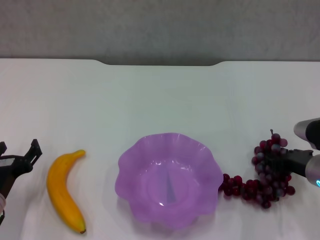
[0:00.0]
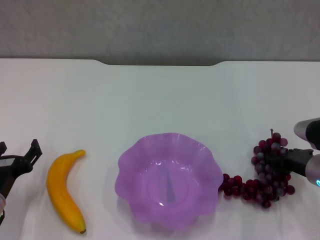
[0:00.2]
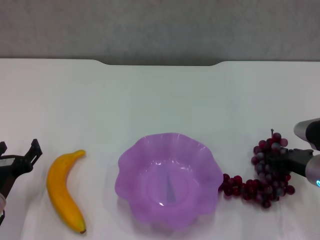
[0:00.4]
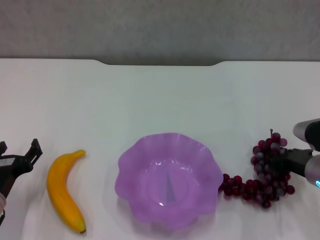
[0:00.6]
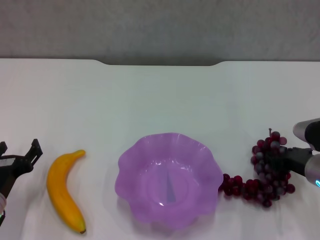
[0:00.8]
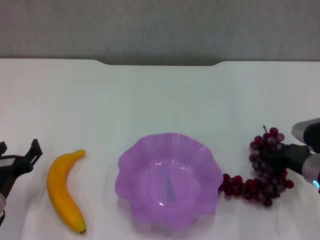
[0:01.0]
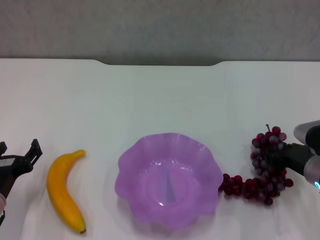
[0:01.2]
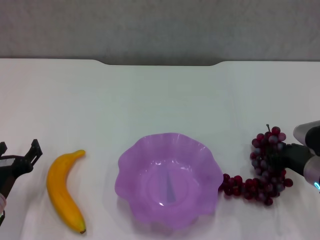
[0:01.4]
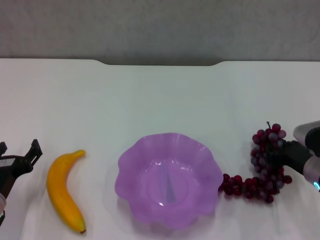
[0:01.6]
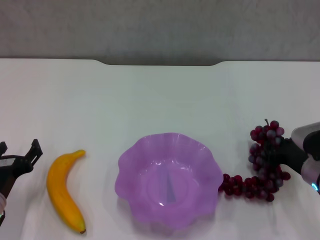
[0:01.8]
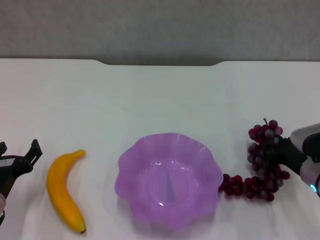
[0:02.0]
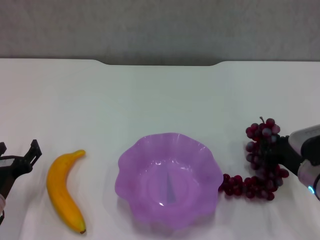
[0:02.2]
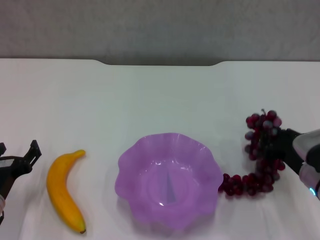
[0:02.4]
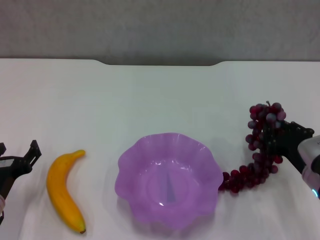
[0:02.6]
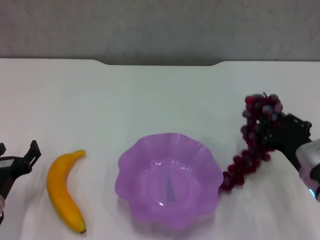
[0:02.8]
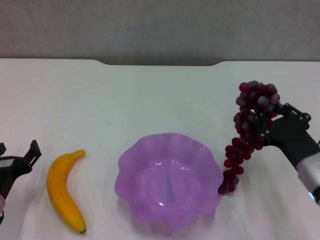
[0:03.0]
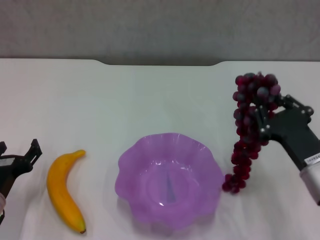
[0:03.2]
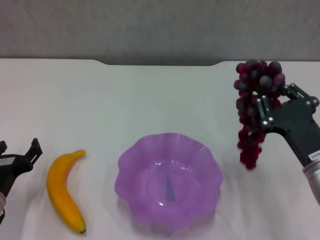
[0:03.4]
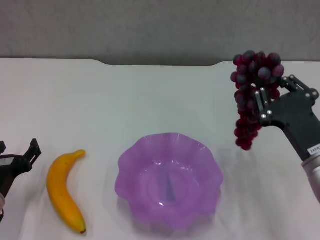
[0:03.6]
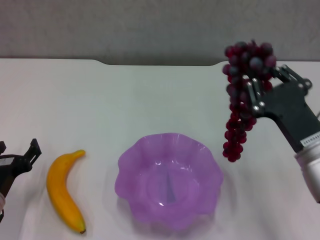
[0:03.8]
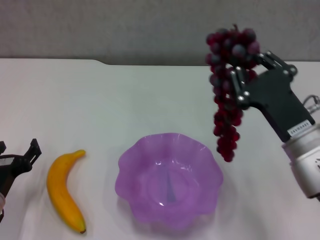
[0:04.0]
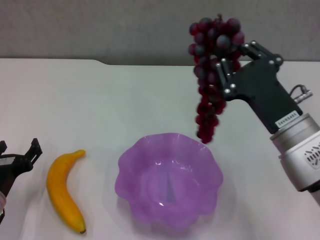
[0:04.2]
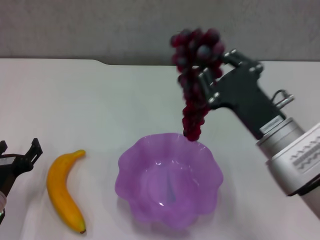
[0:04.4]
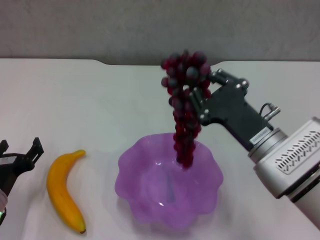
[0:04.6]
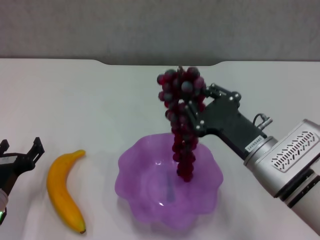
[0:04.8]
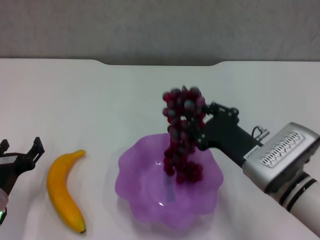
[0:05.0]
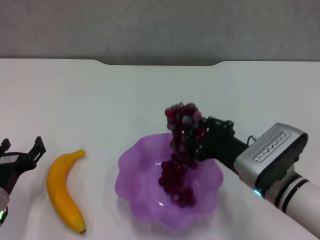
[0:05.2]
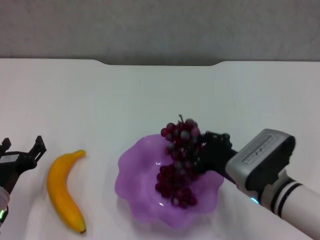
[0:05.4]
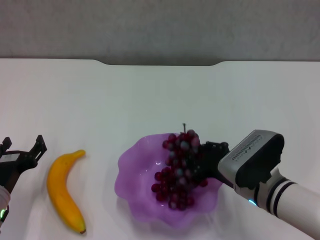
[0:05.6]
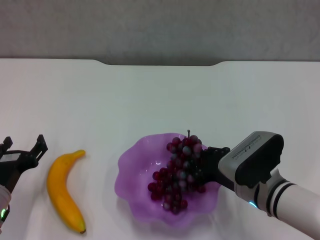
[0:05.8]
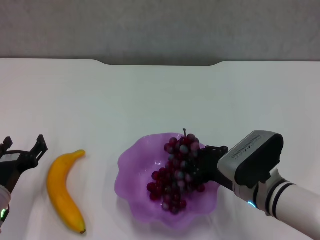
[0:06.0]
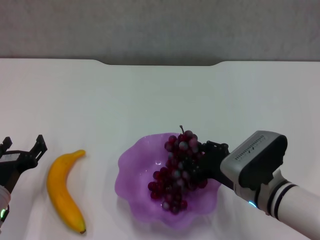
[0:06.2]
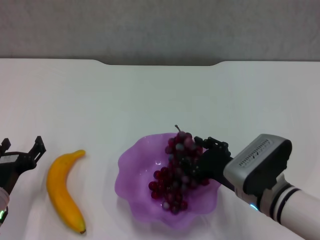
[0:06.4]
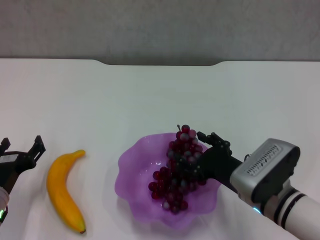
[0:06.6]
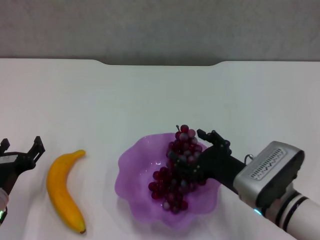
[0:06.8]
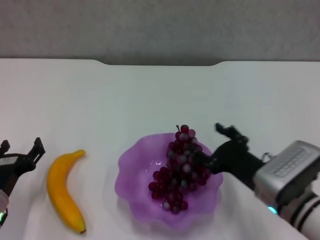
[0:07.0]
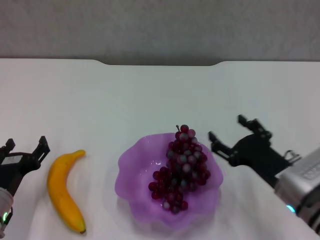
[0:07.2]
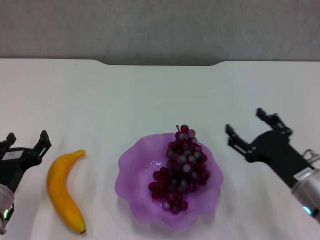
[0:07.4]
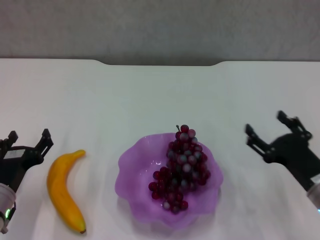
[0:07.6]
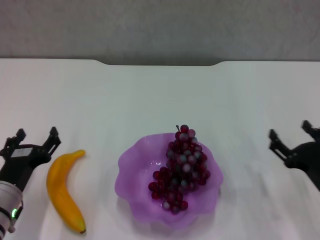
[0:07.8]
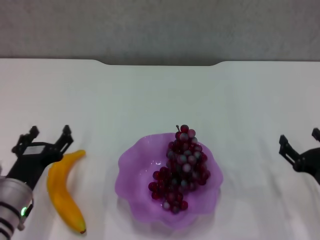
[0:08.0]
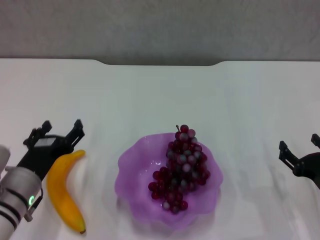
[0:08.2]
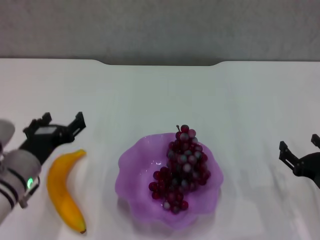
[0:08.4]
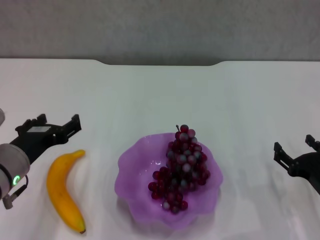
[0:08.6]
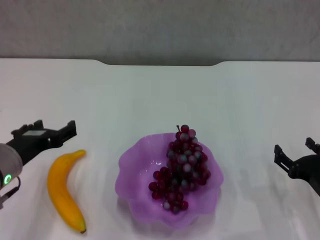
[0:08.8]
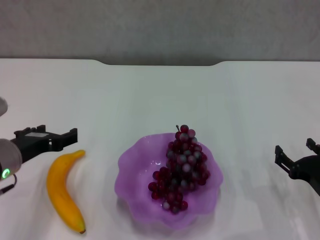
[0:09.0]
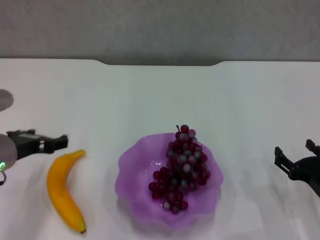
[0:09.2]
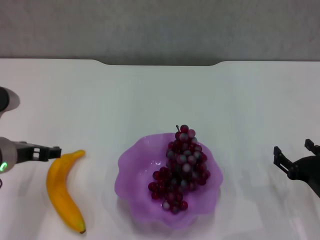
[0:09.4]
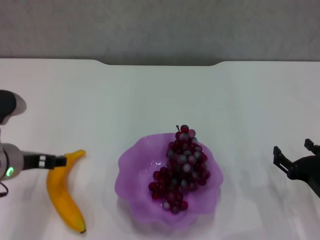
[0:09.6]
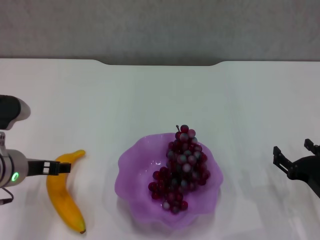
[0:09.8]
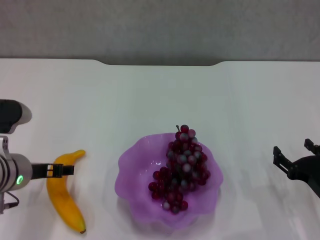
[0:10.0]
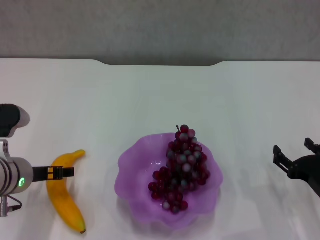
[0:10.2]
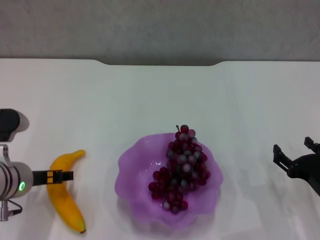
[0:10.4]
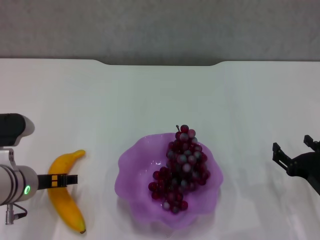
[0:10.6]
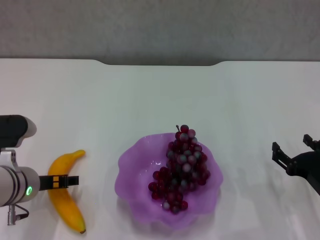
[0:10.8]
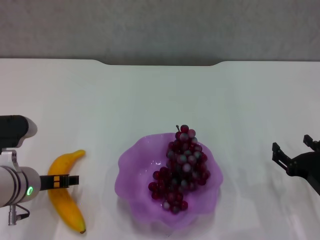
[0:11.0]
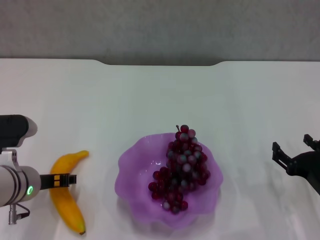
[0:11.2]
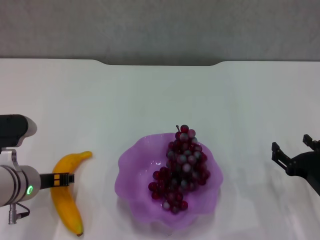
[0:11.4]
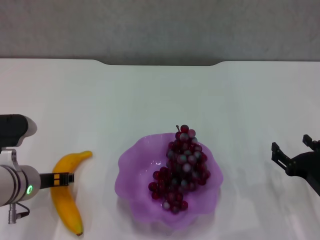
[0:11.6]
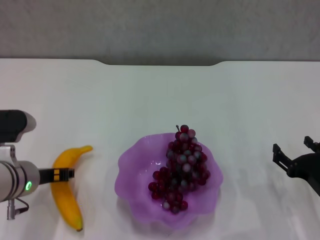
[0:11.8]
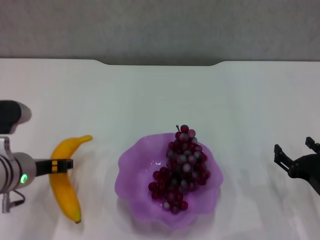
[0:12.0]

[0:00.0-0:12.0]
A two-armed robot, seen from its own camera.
Step, 0:00.0 to 0:07.0: Place the grape in the purple plate with right gripper.
Step, 0:07.2 to 0:11.6: Grasp the banana with left gripper.
0:00.0 to 0:01.6: The grippers make only small movements.
0:01.6 to 0:03.0: The right gripper ends up about 5 cm from where it was.
0:03.0 to 0:04.4: The right gripper goes approximately 10 cm to the left and upward.
0:04.4 to 0:06.0: The right gripper shifts some 10 cm downward.
0:06.0 to 0:07.6: The right gripper heads to the right, covering approximately 10 cm, and opens its fingers.
0:07.6 to 0:09.0: The left gripper heads upward, covering approximately 10 cm.
0:10.4 to 0:12.0: The left gripper closes.

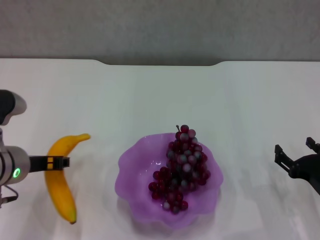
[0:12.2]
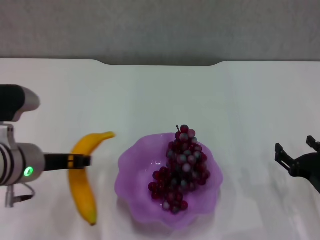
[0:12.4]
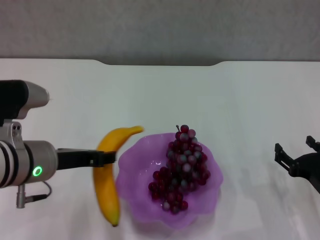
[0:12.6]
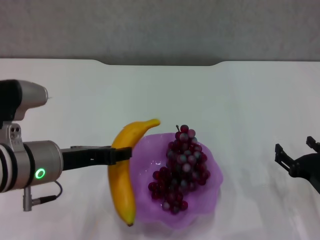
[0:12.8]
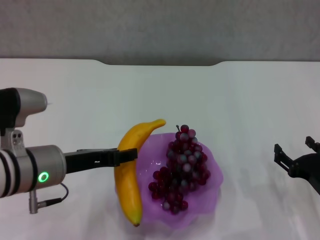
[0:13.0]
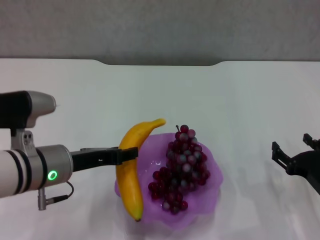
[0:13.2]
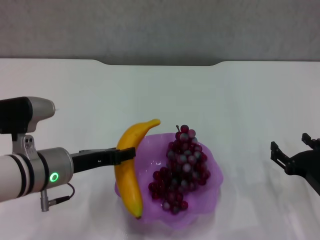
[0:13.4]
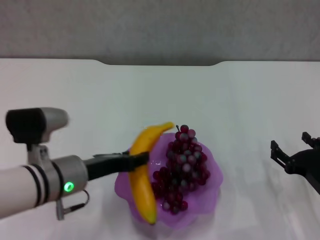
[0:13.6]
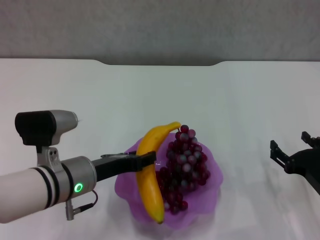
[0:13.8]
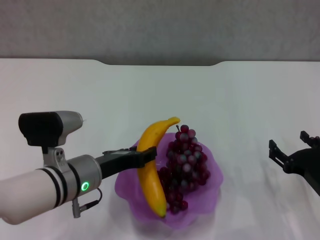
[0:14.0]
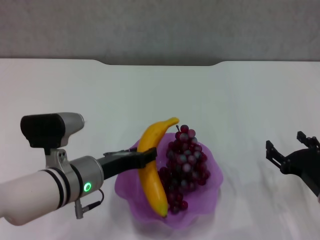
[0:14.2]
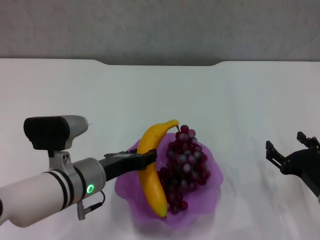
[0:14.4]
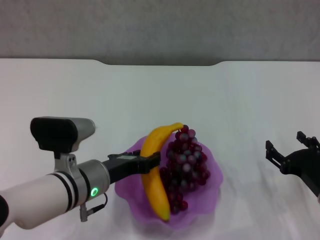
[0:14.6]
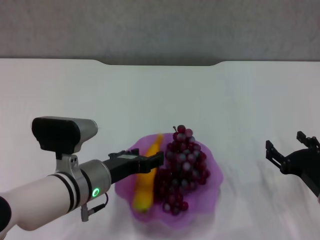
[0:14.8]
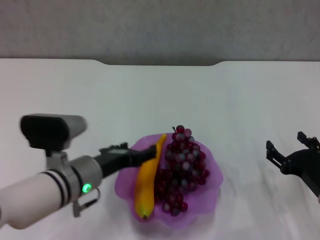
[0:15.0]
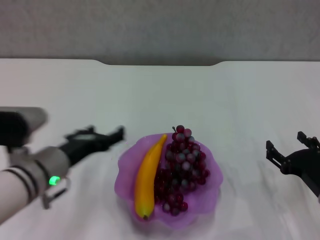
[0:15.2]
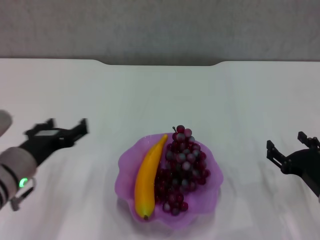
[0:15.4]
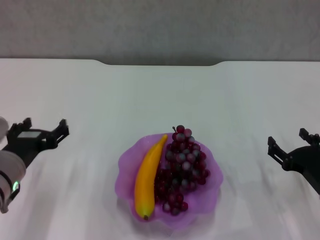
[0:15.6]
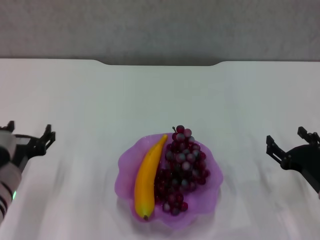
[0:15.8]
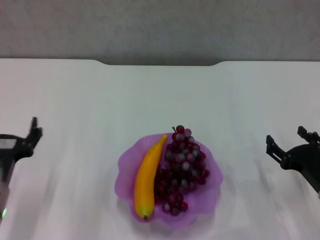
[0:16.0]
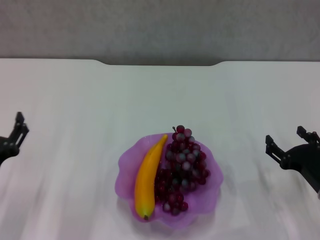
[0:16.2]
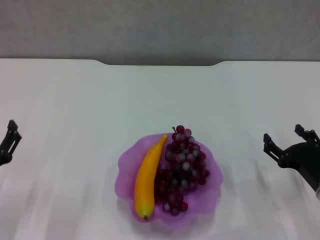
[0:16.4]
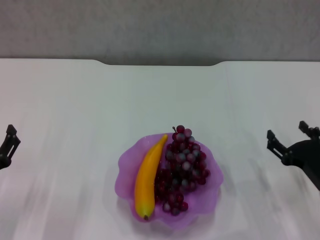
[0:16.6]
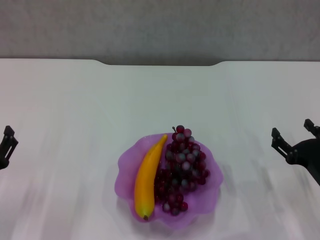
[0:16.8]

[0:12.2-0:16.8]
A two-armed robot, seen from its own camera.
Step, 0:12.2 to 0:15.0: Place the banana in the purple plate with left gripper.
0:12.2 to 0:13.8: The left gripper heads to the right, covering approximately 5 cm.
0:13.8 to 0:15.2: The left gripper opens up.
0:15.2 to 0:16.8: The left gripper heads to the left, backward and downward, covering about 15 cm.

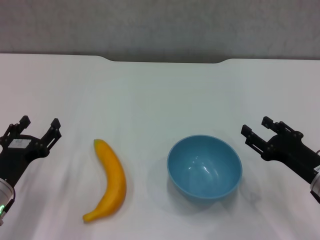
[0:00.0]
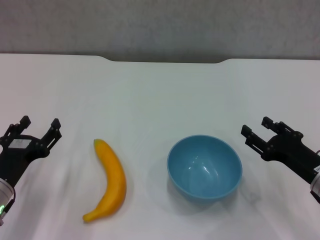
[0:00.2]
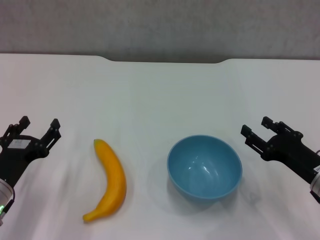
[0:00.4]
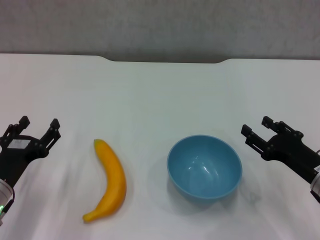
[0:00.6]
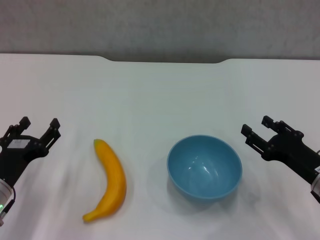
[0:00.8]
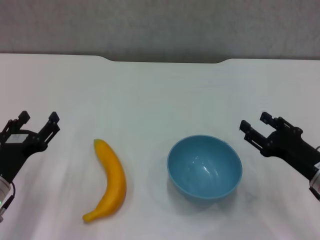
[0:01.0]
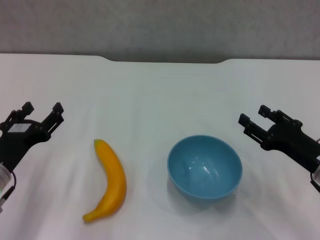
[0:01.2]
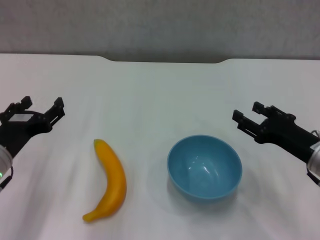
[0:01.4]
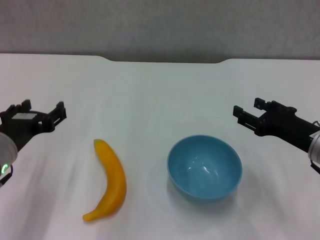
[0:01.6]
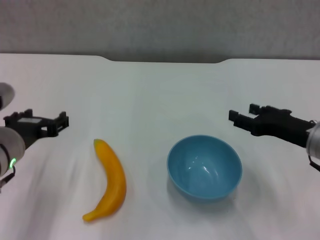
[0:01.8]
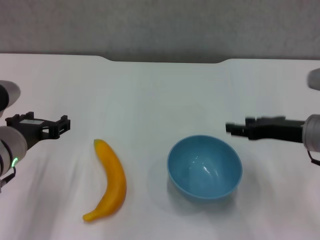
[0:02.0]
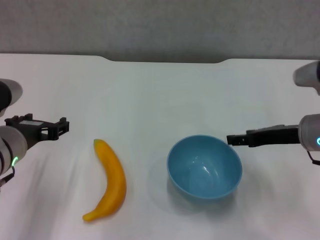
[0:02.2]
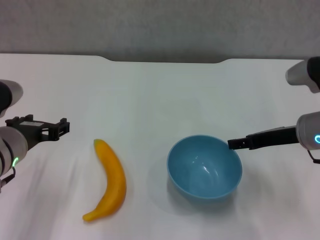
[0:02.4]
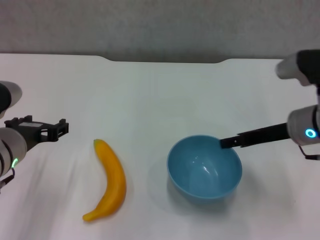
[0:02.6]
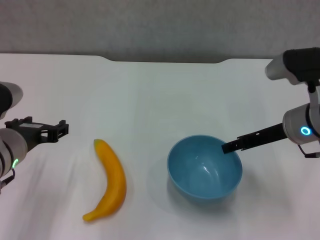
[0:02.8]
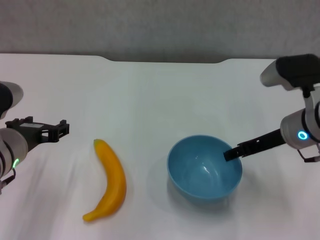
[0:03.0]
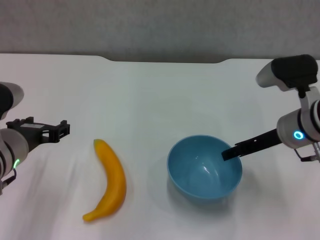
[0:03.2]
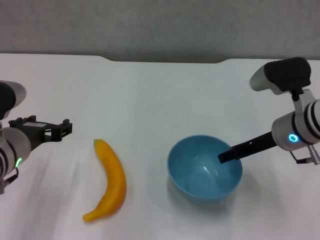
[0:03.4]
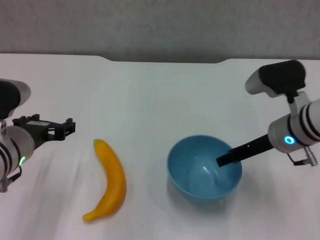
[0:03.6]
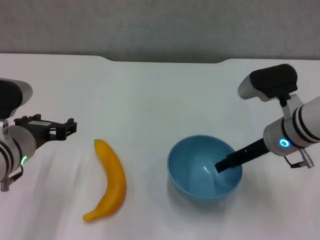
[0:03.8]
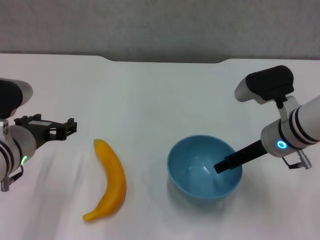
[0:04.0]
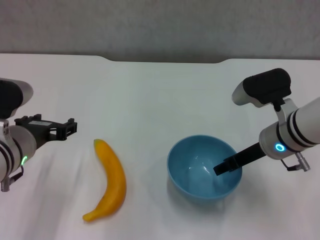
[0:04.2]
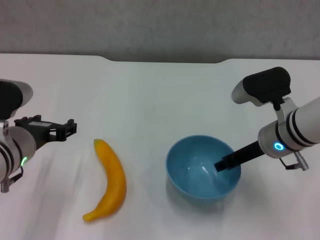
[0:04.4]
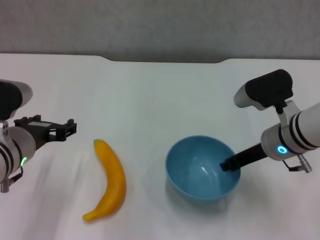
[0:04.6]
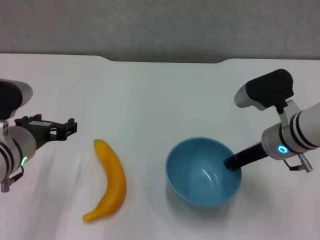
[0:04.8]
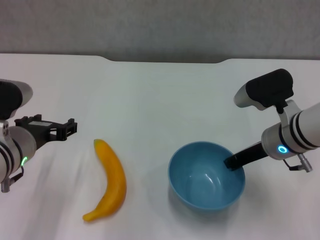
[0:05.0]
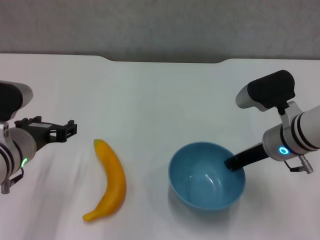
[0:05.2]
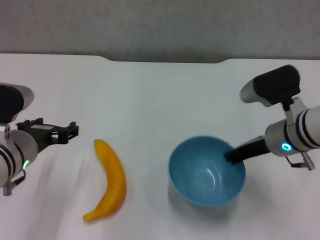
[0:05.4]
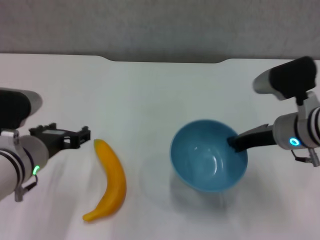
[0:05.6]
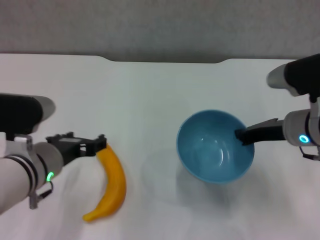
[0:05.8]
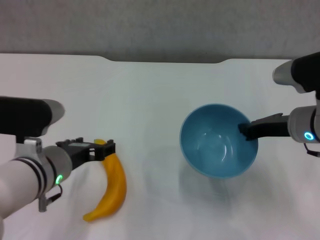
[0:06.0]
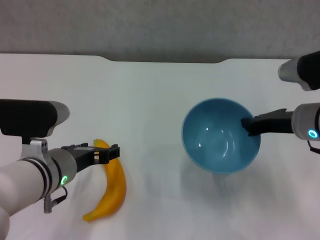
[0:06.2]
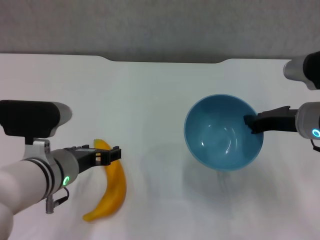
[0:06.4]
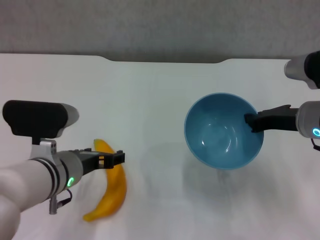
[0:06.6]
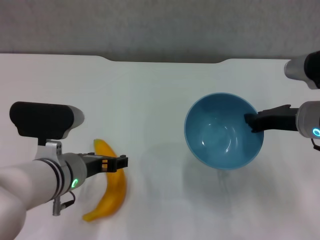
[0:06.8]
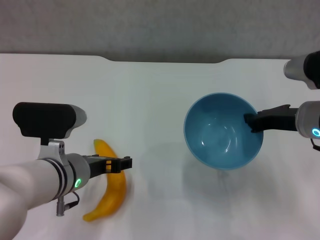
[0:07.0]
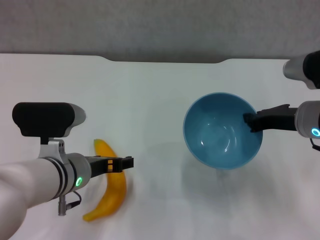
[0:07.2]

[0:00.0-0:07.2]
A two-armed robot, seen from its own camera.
Step, 0:00.0 to 0:04.8: Grasp the blue bowl with right gripper.
Step, 0:05.0 to 0:05.8: Lift the blue bowl with right gripper.
0:00.0 to 0:01.4: The left gripper goes some 5 cm upward.
0:01.4 to 0:02.8: The right gripper shifts approximately 10 cm forward and upward.
0:02.8 to 0:04.4: The grippers make only small movements.
0:04.4 to 0:05.8: The right gripper closes its fingers.
